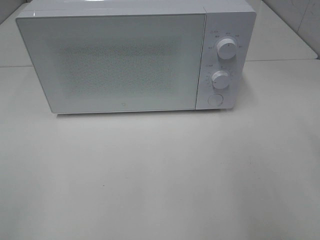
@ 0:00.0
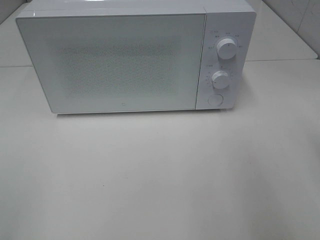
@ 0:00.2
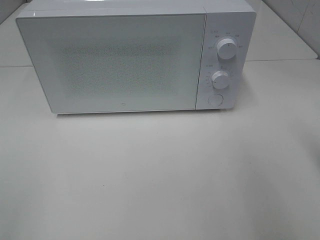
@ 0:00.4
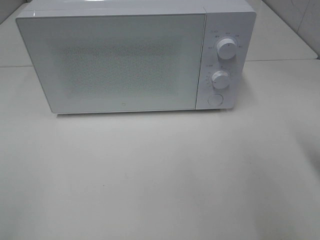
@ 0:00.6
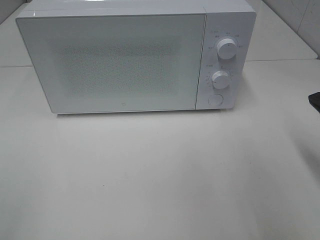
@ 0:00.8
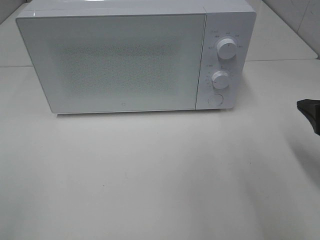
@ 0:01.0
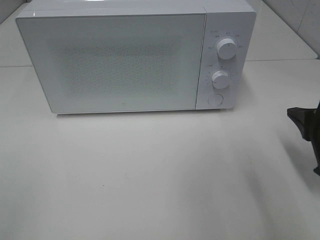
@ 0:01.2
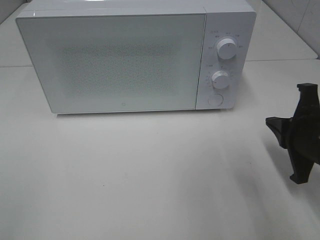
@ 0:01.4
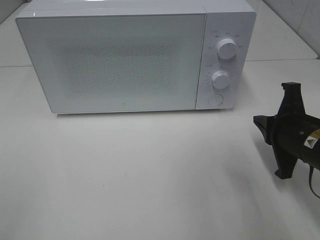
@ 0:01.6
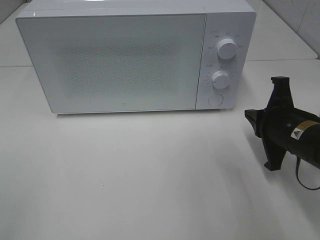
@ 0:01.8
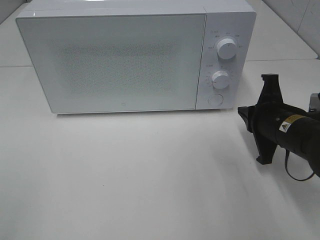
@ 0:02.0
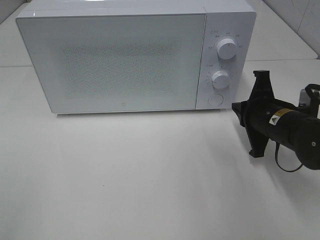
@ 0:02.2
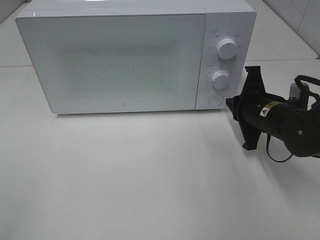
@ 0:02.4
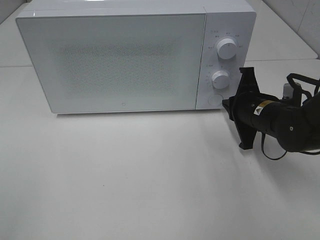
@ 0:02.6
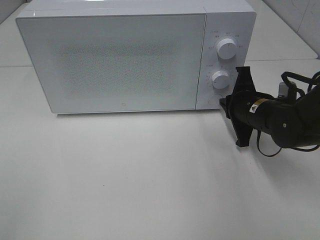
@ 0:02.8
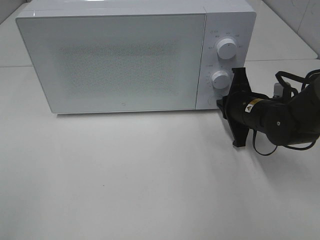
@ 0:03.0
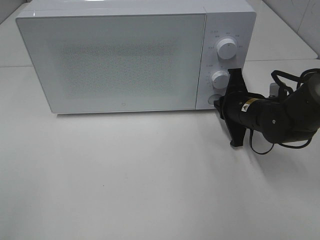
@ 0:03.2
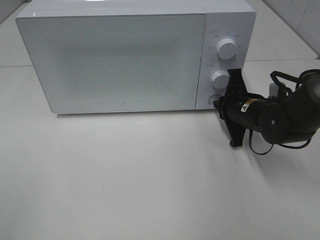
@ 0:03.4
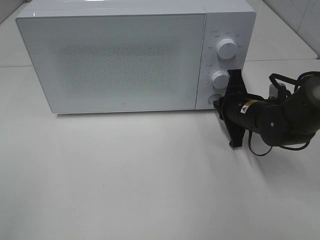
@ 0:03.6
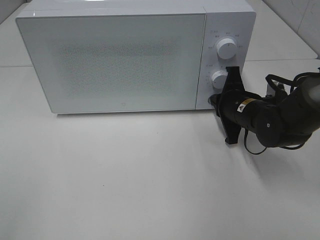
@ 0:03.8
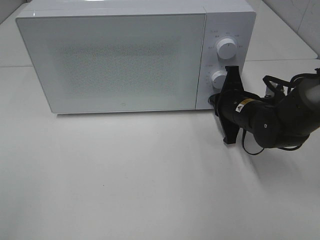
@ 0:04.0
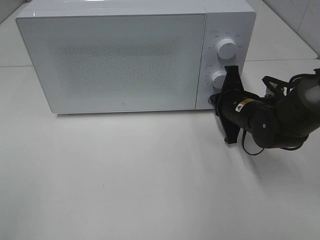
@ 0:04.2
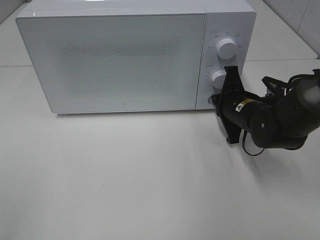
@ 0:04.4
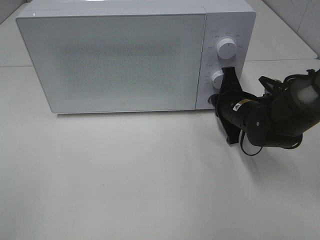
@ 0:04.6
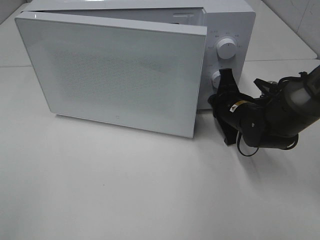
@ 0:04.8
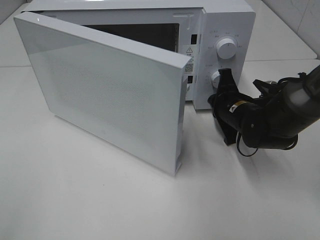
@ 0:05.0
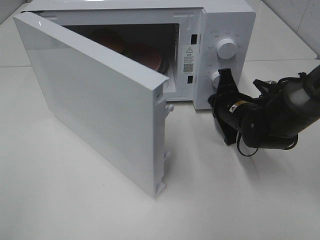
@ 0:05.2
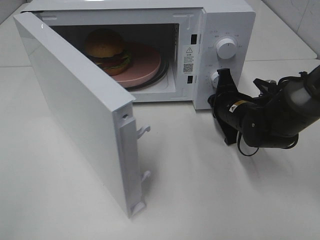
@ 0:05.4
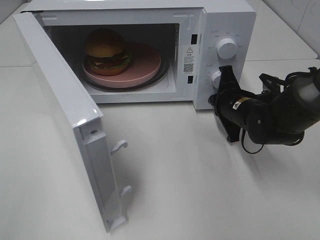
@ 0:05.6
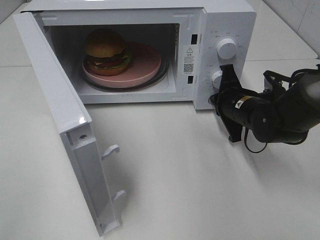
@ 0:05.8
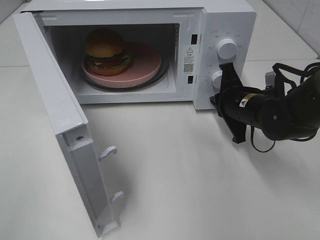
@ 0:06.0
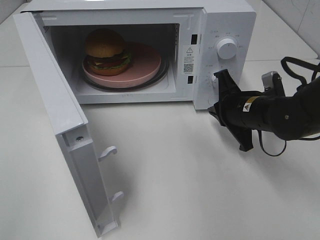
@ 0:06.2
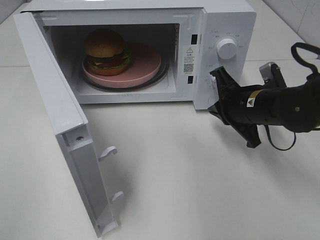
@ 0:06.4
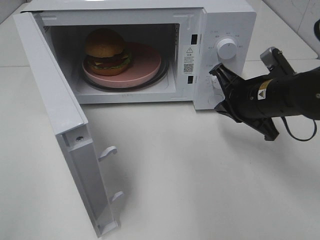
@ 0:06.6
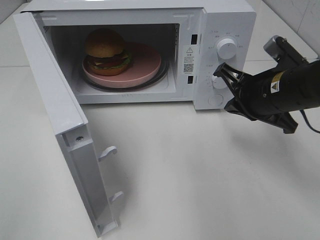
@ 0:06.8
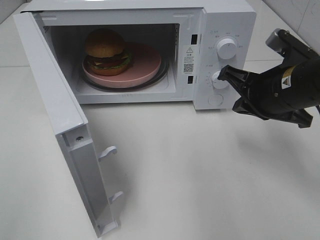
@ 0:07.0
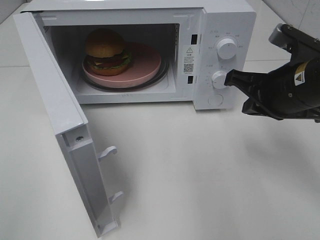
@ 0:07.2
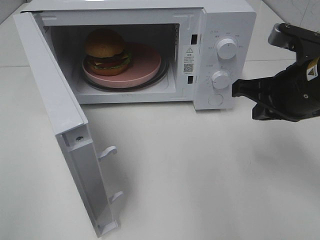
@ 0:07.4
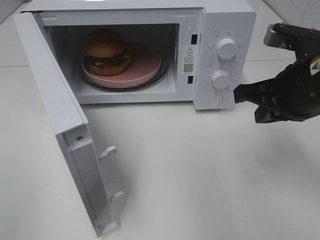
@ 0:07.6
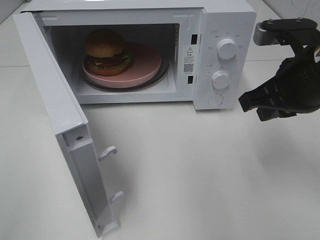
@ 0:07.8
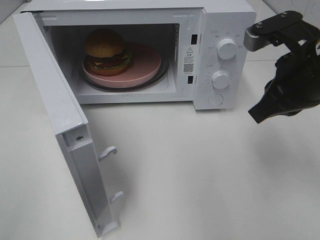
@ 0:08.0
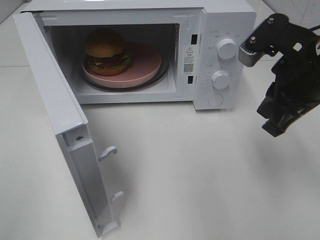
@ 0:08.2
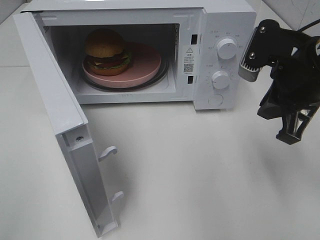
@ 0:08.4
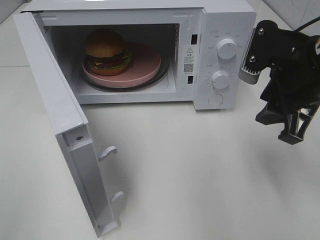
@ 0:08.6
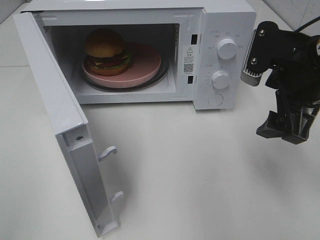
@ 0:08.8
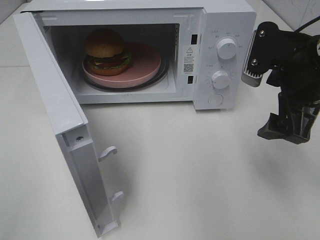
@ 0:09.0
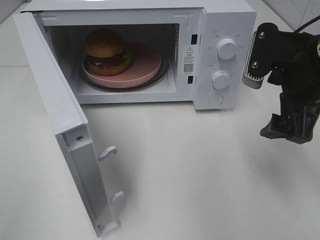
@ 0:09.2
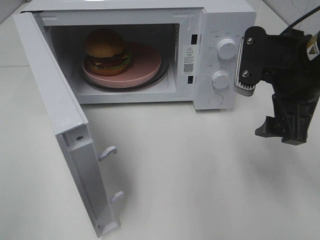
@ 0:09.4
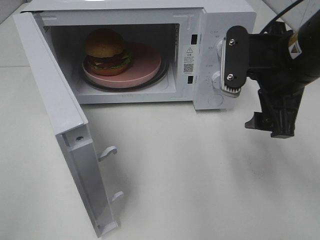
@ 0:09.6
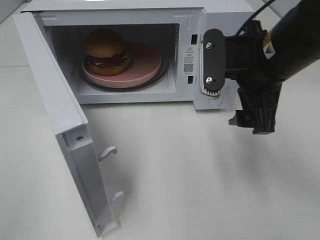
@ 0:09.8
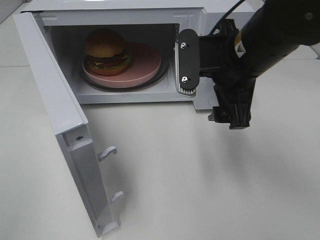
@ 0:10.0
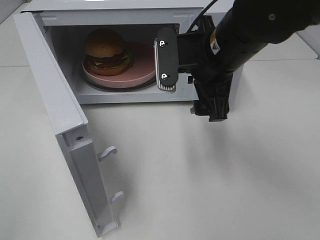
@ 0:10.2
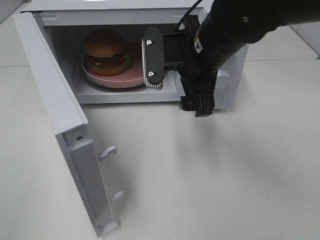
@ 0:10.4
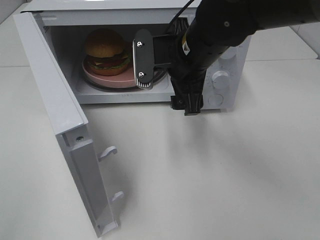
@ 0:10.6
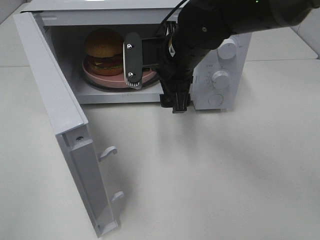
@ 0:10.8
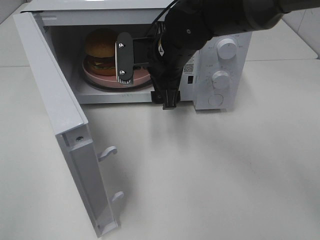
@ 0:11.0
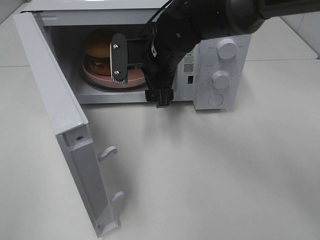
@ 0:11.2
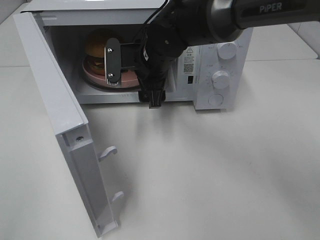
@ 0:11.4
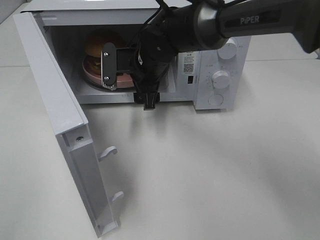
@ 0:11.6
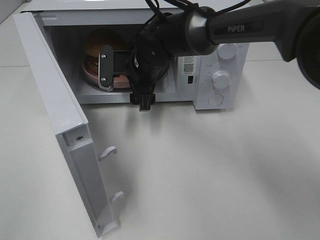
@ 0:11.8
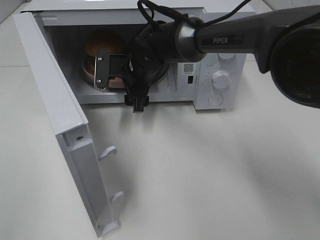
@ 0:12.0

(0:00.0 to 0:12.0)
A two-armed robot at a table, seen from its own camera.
Task of the whole recording: Heat the burger.
Step, 0:00.0 - 0:06.0: Right hand: press the switch.
0:00.0 - 0:01.6: The right gripper shifts about 20 cm downward, forward and to the left, and closes up.
0:01.6 - 0:03.0: The right gripper moves forward, roughly 10 cm.
0:03.0 - 0:04.4: The grippers make only small movements.
0:06.0 - 0:07.6: The right gripper moves upward and backward, some 15 cm.
0:07.6 - 0:09.0: The right gripper opens its fingers.
0:09.0 - 0:10.4: The right gripper travels to the left and forward by approximately 15 cm.
0:10.4 - 0:12.0: The right gripper heads forward, downward and to the left, covering about 20 cm.

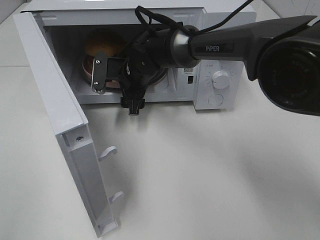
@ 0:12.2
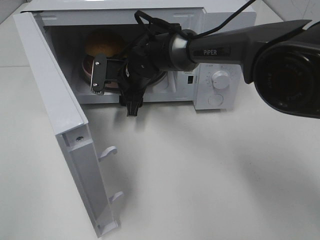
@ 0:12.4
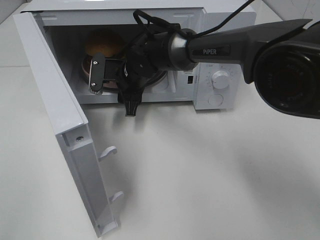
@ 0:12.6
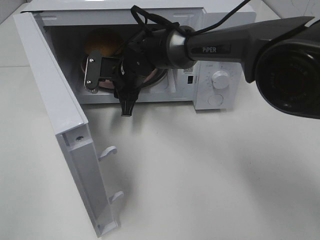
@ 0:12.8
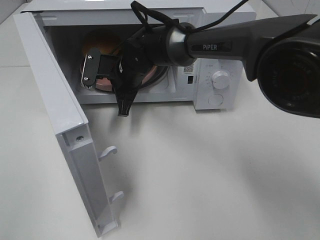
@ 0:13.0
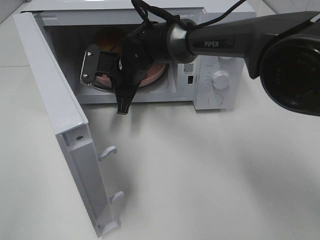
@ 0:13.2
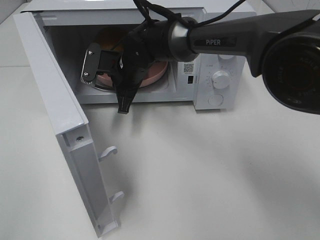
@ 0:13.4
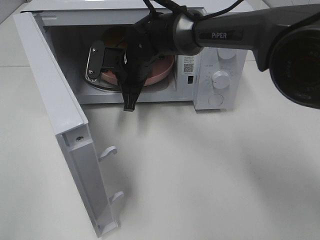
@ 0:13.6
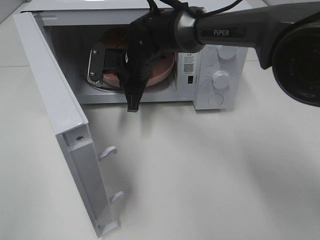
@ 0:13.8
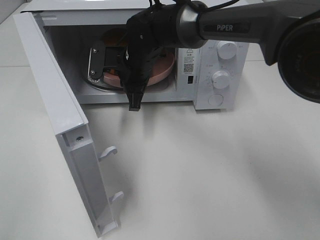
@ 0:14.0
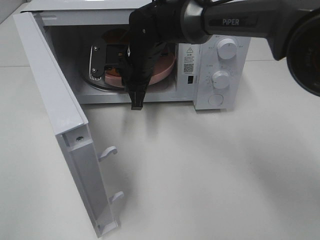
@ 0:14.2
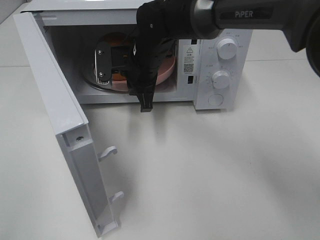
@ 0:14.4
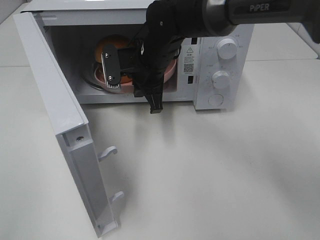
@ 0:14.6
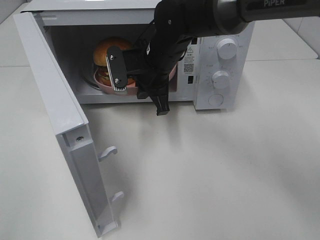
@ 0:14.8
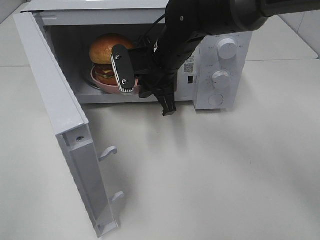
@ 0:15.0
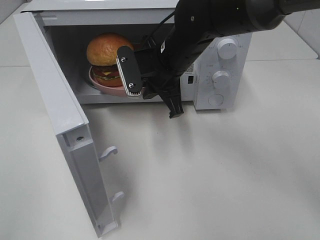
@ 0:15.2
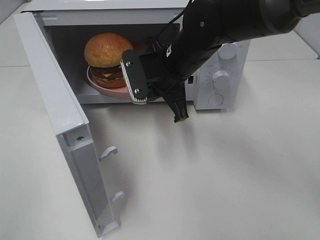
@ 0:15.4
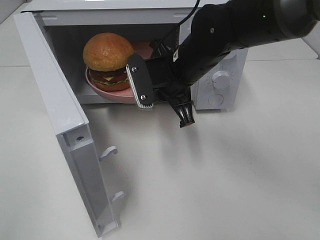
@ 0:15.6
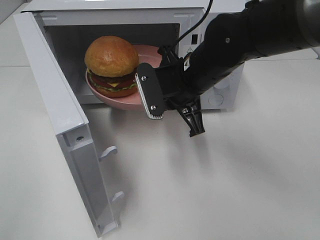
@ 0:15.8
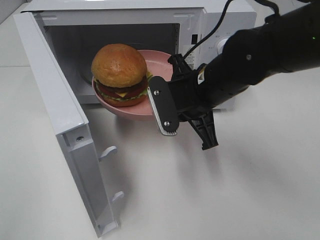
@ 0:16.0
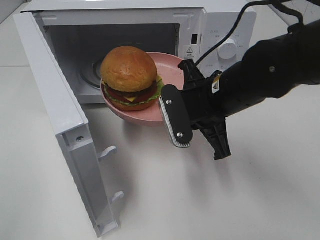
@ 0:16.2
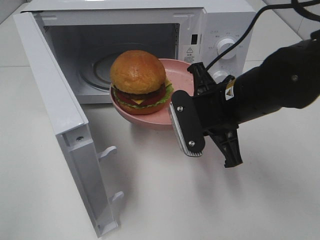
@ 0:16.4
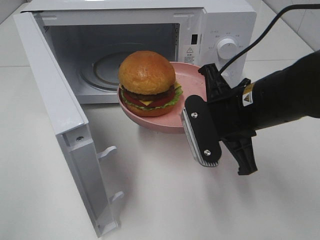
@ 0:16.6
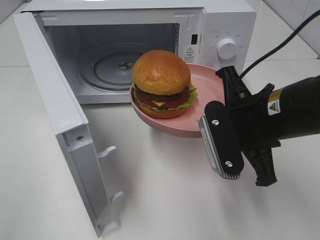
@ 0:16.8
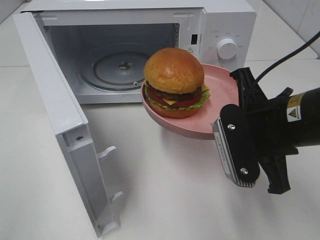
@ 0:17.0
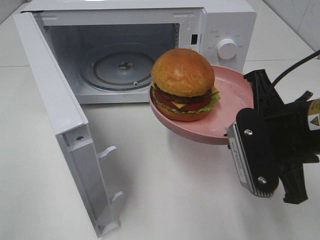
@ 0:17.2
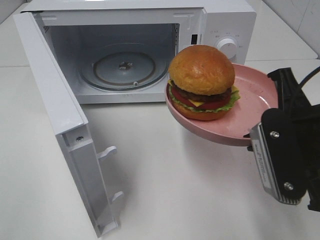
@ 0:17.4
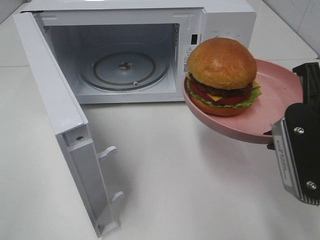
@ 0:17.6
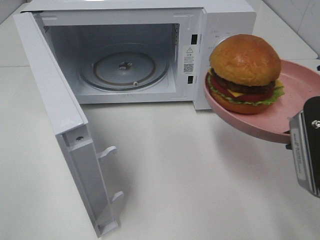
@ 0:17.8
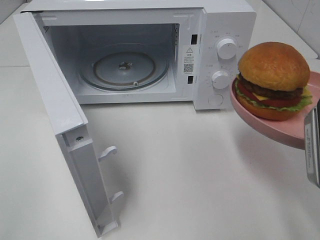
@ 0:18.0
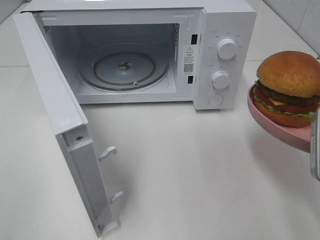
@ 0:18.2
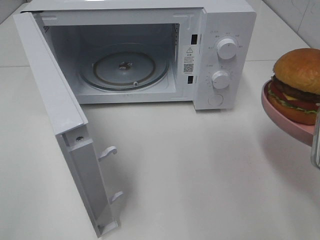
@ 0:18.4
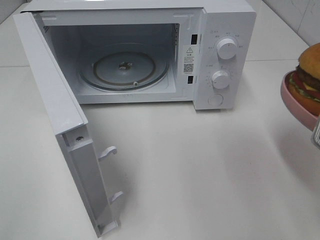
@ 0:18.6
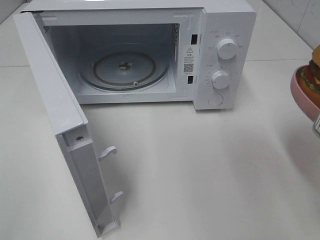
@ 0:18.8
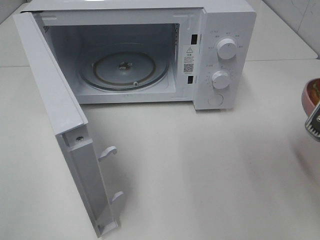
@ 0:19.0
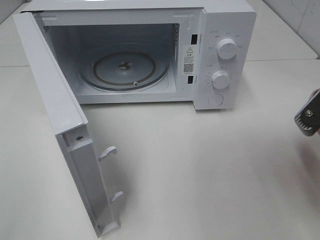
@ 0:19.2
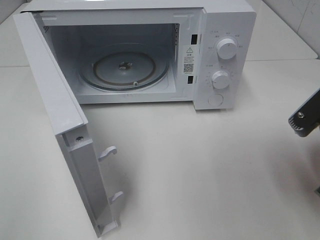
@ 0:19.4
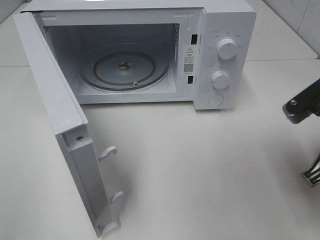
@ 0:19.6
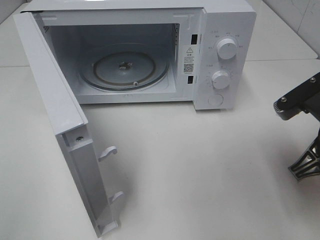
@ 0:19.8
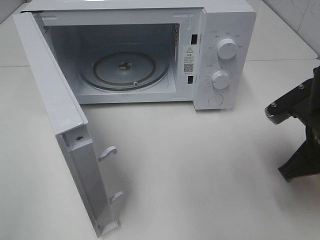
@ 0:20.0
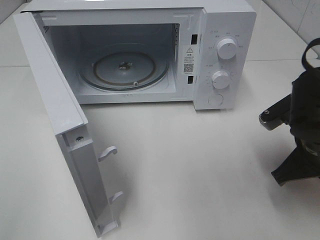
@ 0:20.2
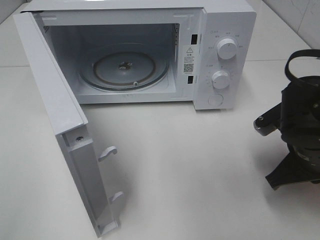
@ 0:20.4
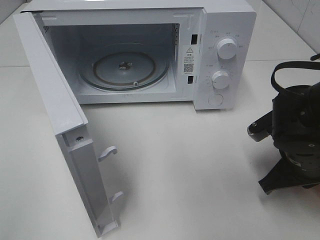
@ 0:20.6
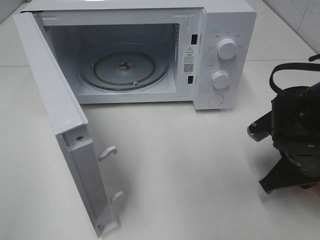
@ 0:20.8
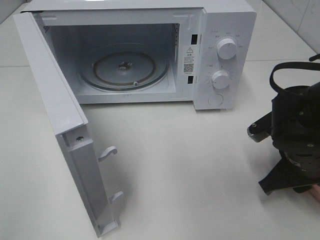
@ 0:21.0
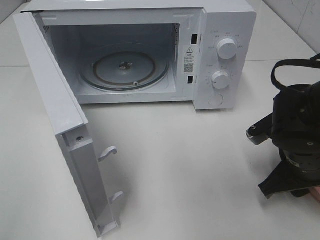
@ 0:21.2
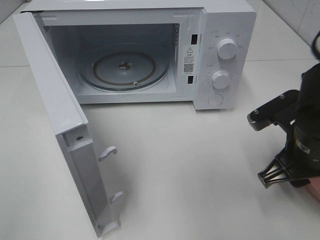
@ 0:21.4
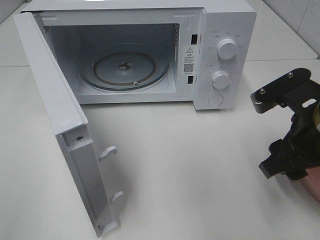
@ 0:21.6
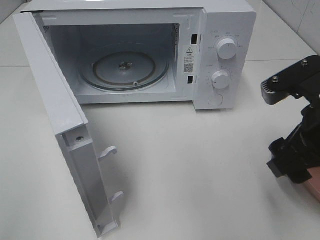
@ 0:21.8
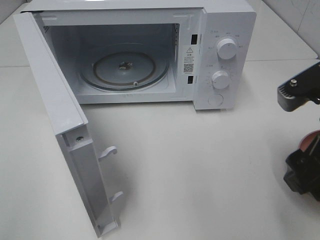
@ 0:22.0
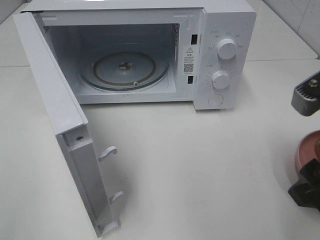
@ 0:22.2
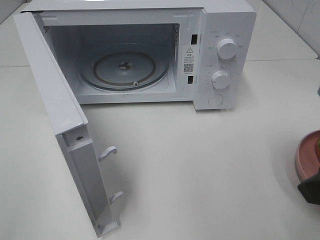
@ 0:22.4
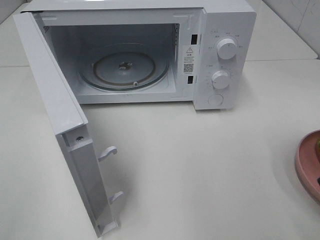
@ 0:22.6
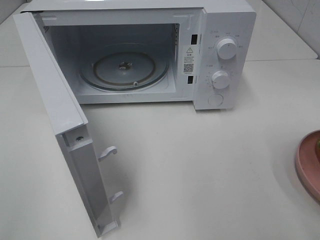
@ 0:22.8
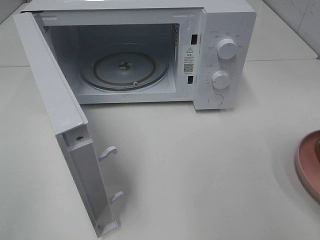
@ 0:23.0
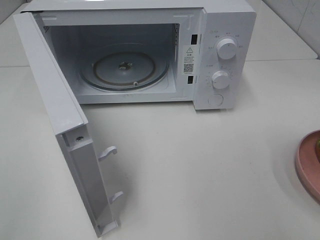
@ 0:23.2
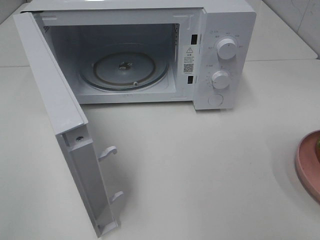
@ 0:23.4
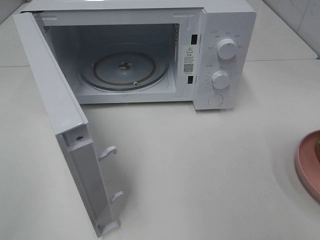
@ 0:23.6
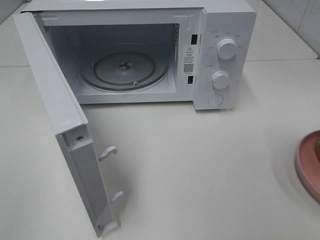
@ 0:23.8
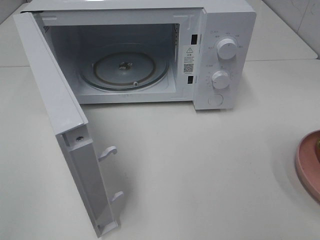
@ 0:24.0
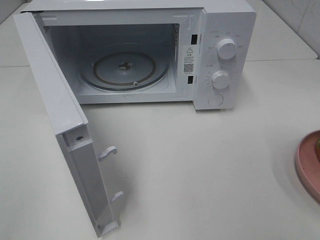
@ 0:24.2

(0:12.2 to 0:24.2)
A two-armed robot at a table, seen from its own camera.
Task of the whole recording: Heat the burger.
Step, 0:13.4 - 0:21.0: Right hand: place the plate on the table.
0:12.2 - 0:13.8: The right gripper closes.
0:13.8 - 0:15.2: The right gripper travels to the right and backward by roughly 10 cm.
0:15.2 - 0:16.6: The right gripper travels backward and to the right by roughly 15 cm.
0:16.6 - 0:18.2: The right gripper is displaced to the right and backward by roughly 15 cm.
0:18.2 - 0:19.8: The right gripper goes some 5 cm forward.
0:19.8 - 0:21.2: The right gripper goes approximately 5 cm downward, and opens its fingers.
0:21.2 - 0:22.6: The right gripper moves upward and backward, roughly 20 cm.
